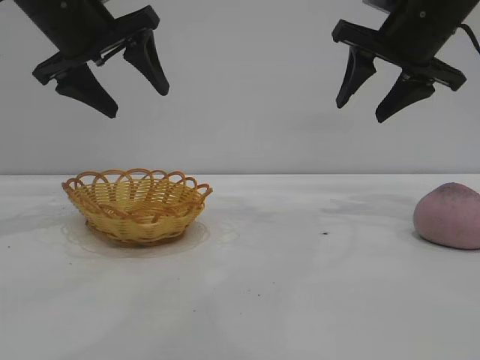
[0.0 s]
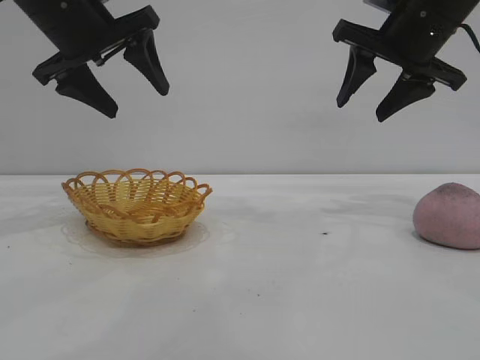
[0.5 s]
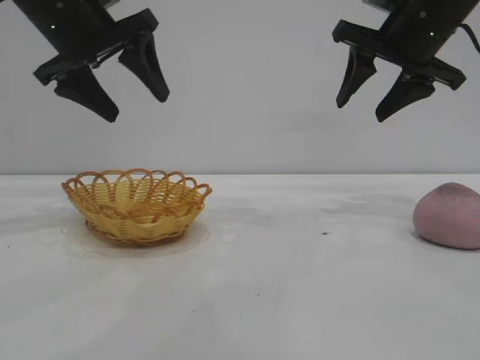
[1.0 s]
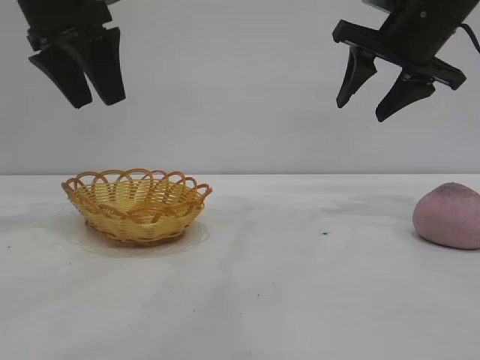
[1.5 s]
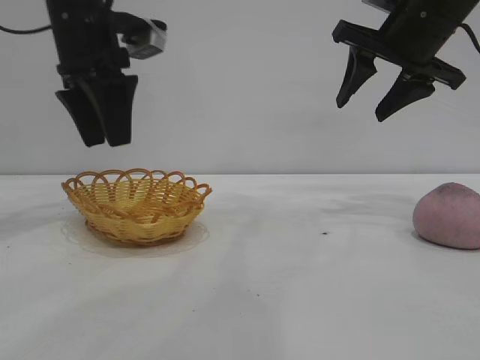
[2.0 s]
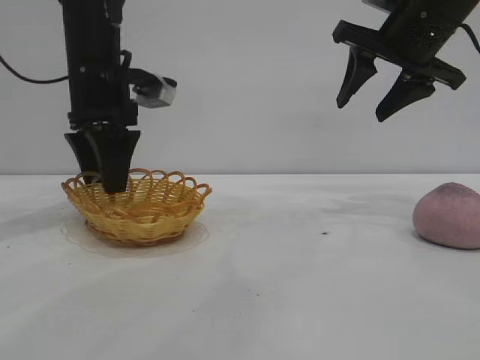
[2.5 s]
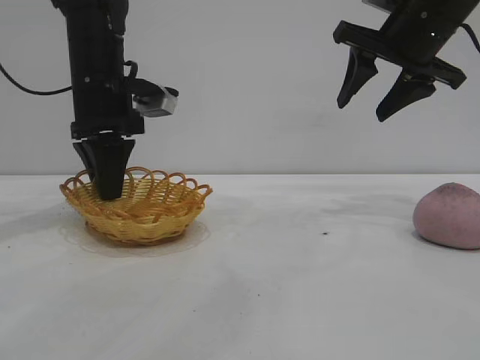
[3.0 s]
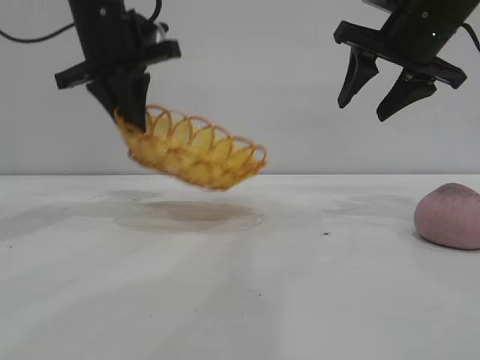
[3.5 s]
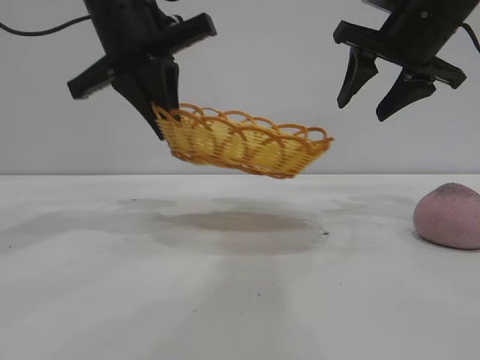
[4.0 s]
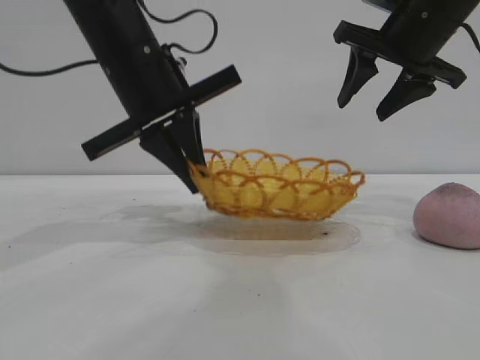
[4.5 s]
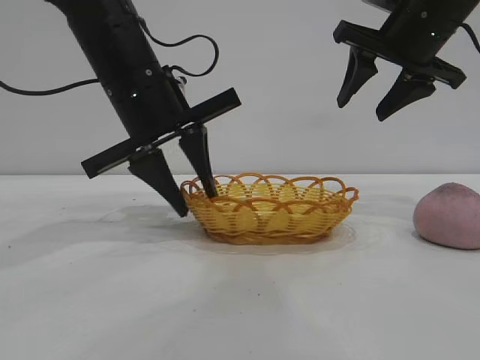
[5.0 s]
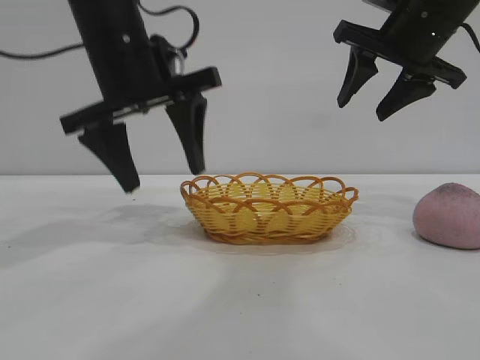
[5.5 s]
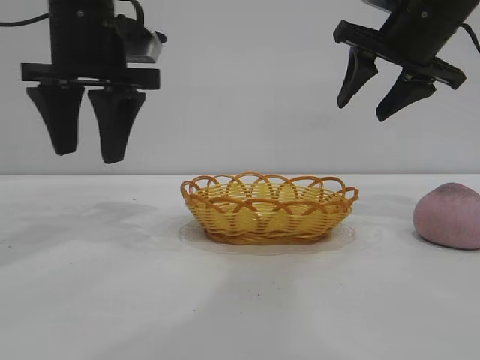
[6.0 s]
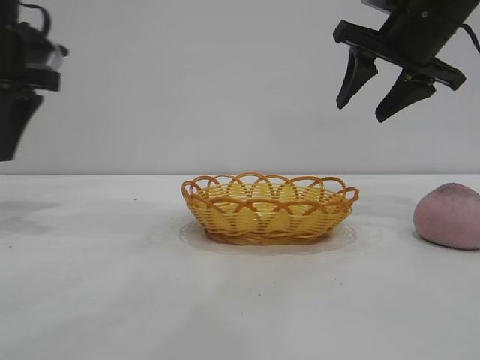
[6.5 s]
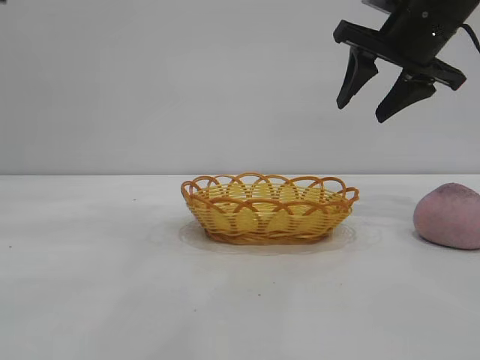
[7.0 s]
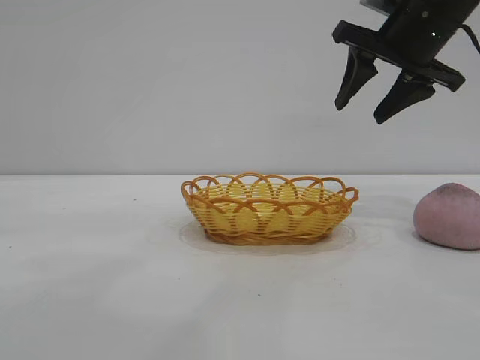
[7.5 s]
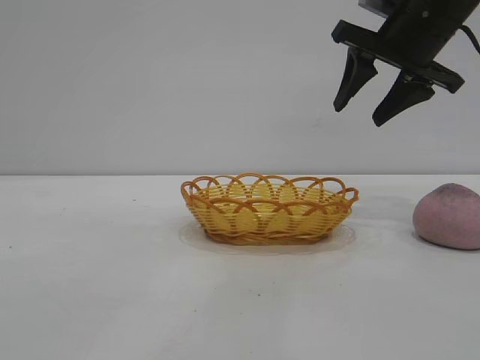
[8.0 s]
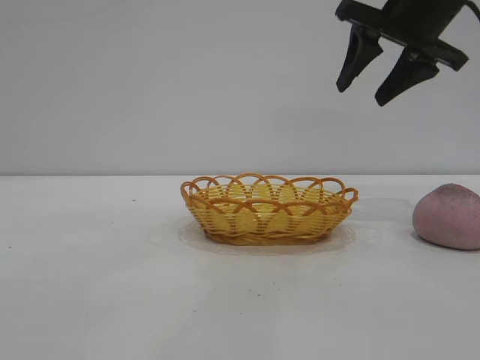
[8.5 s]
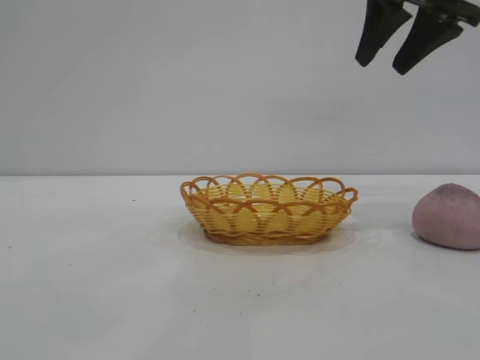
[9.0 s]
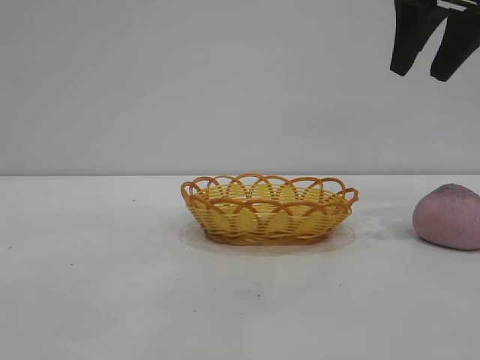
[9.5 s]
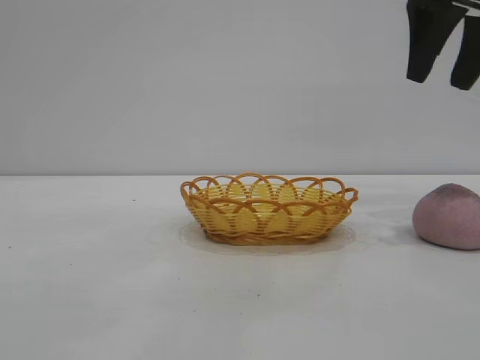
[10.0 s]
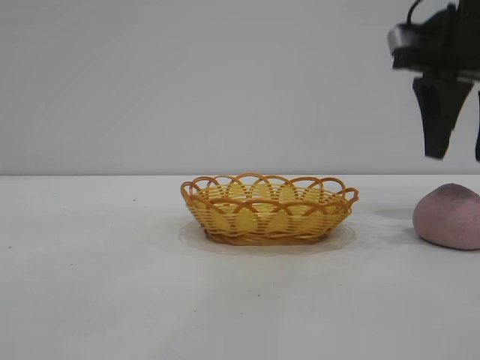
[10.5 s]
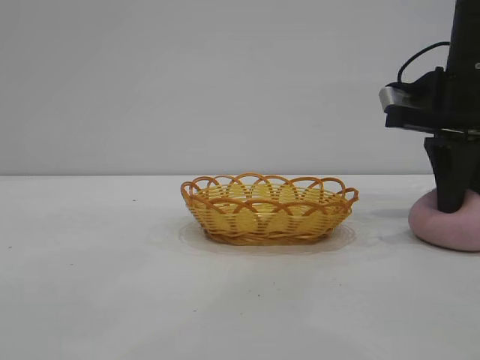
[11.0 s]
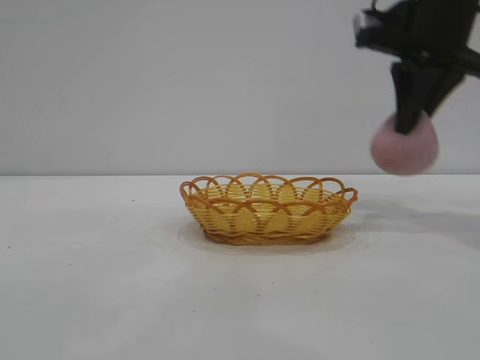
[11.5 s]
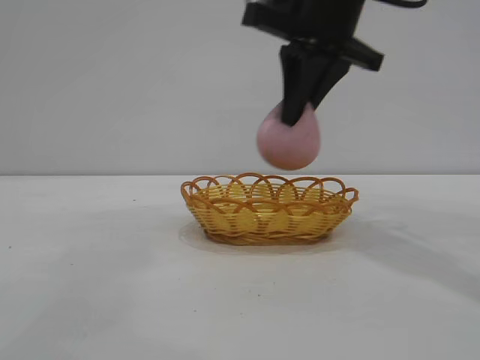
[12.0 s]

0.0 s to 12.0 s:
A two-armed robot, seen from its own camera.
Task of the whole recording: pick up the peach and put it into the basket.
Step, 0.0 to 5.5 s: Move the basket to the center of view.
Step, 6.0 to 11.0 s: Pick up the peach.

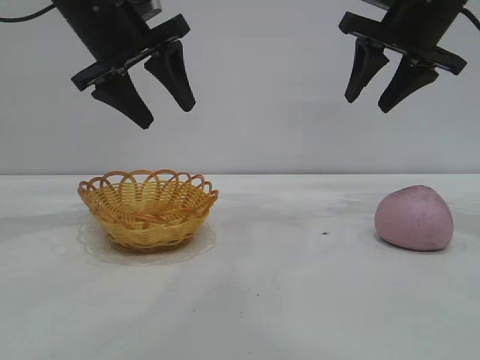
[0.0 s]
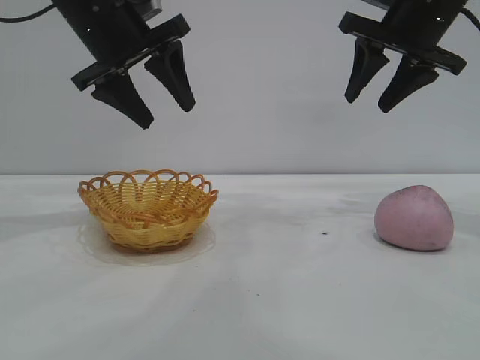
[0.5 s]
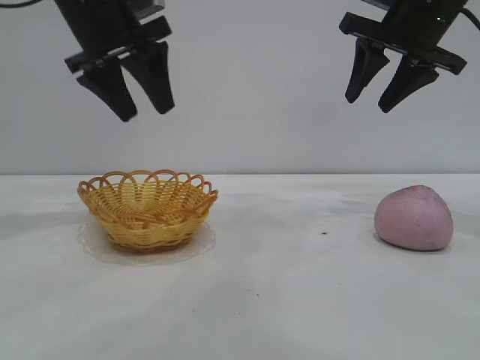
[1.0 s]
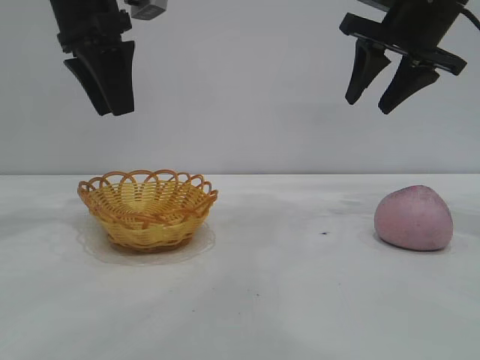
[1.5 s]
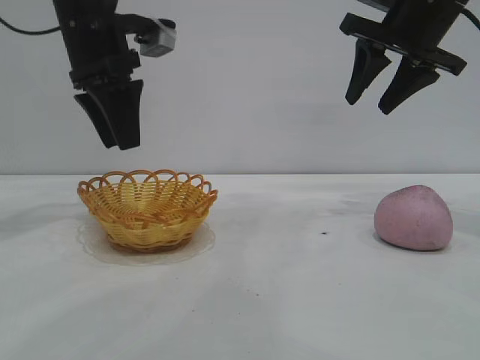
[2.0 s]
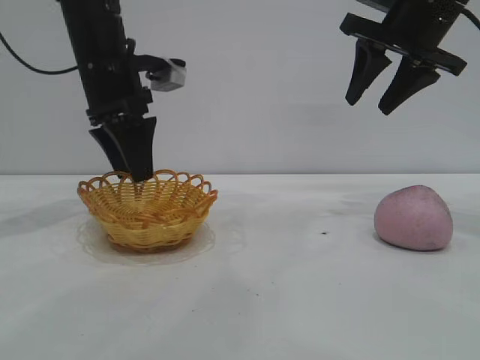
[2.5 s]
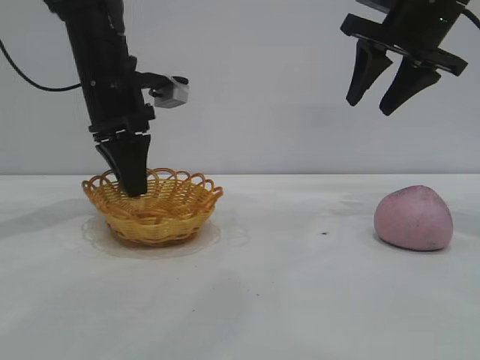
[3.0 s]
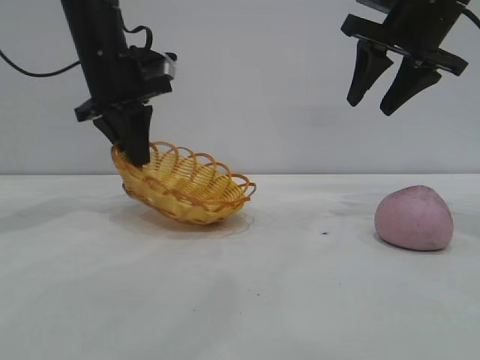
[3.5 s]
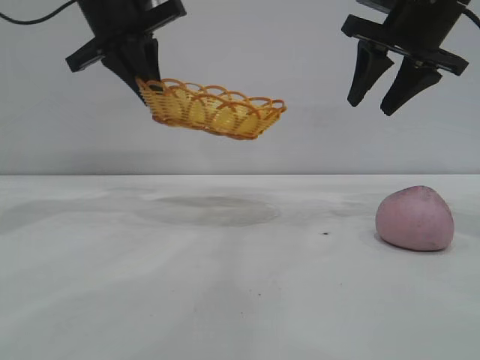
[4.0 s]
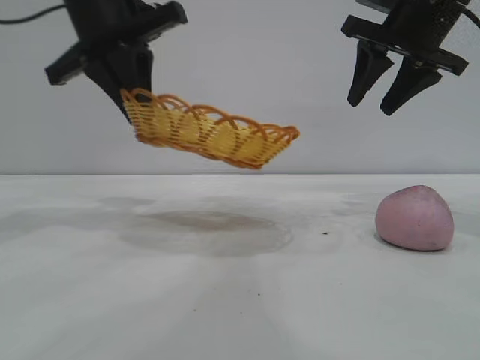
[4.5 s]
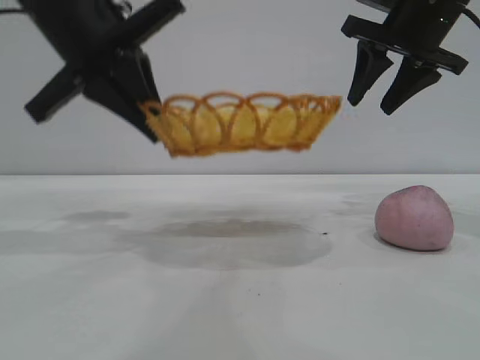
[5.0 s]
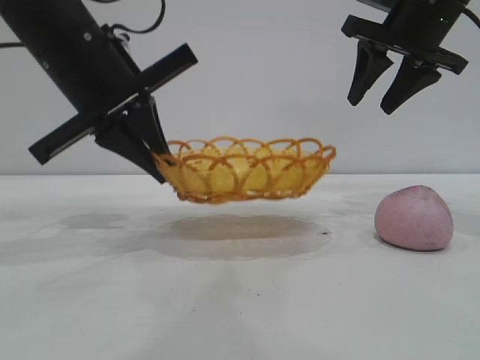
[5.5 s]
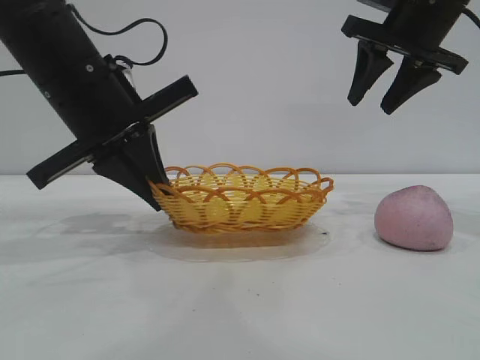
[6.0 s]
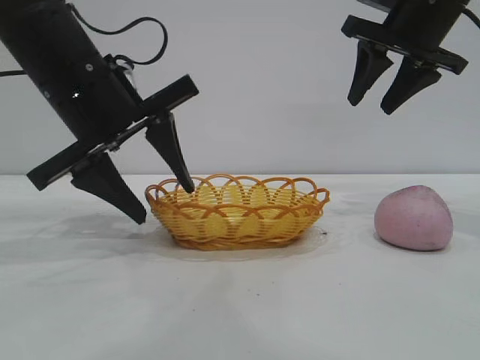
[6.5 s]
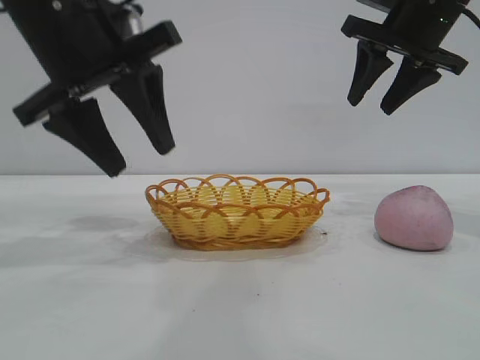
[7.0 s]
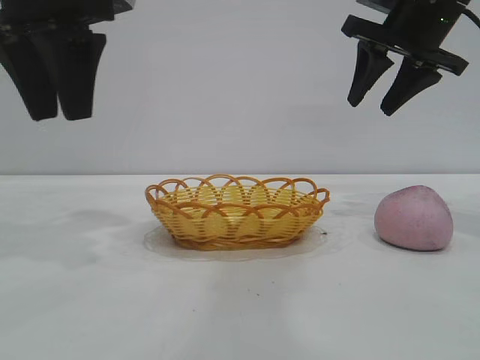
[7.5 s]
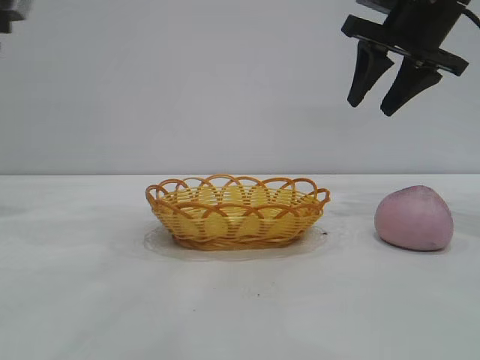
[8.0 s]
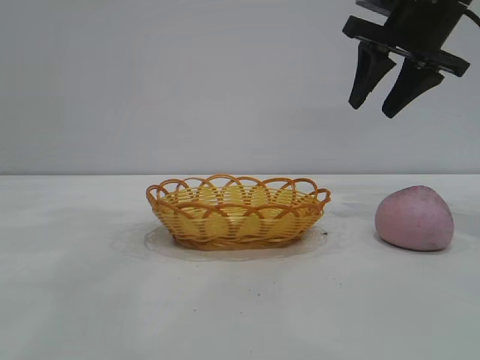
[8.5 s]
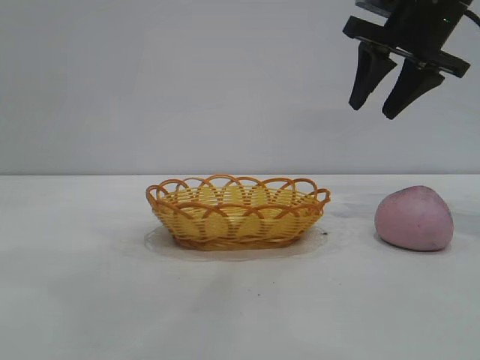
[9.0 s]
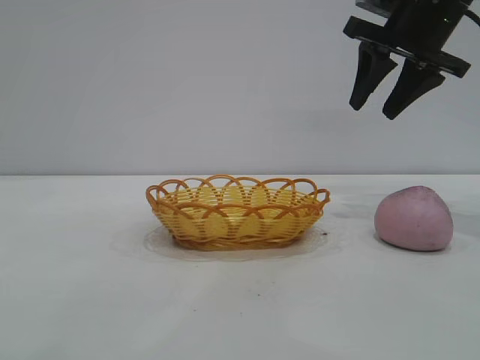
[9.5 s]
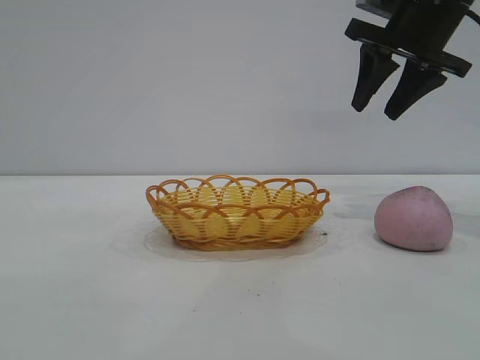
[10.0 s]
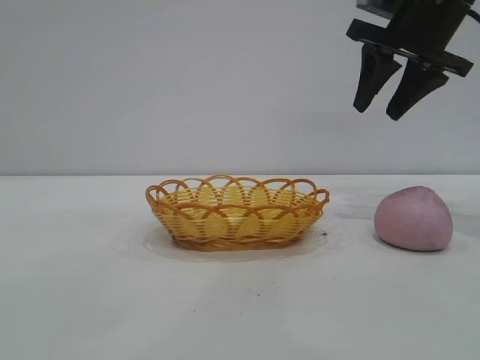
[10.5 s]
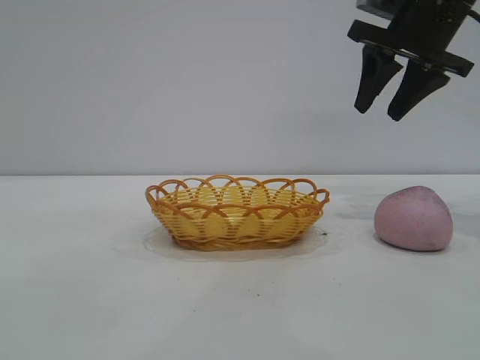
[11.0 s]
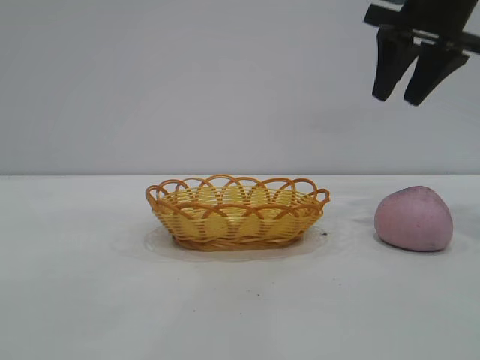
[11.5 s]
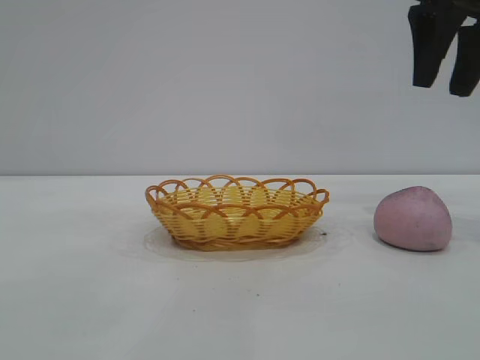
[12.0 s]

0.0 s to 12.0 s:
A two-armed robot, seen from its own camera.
Task of the whole recording: pick up the peach and put it into the basket.
Step, 0.0 to 7.0 s: Move the basket to the center of view.

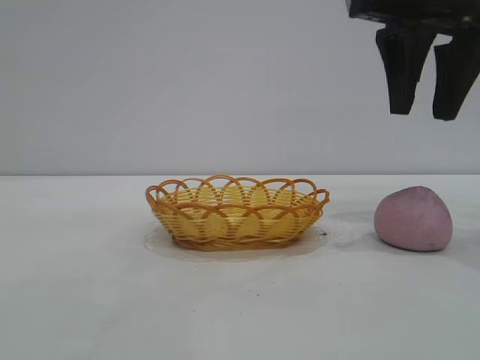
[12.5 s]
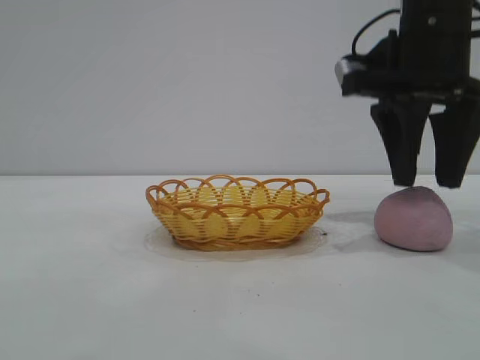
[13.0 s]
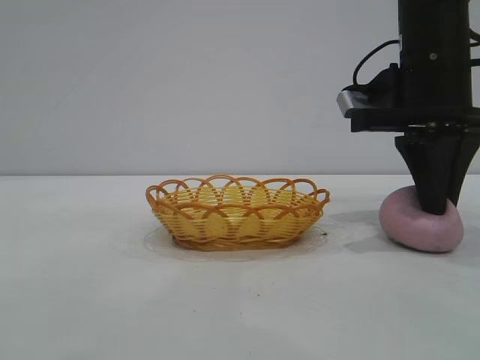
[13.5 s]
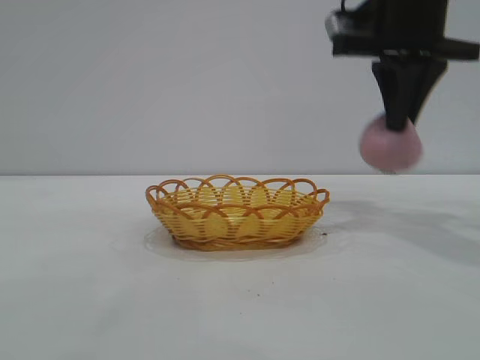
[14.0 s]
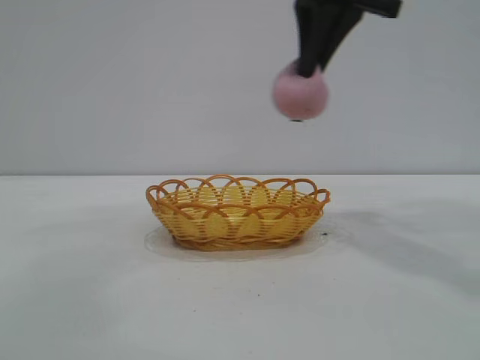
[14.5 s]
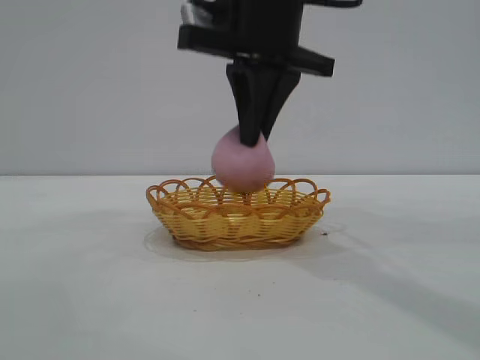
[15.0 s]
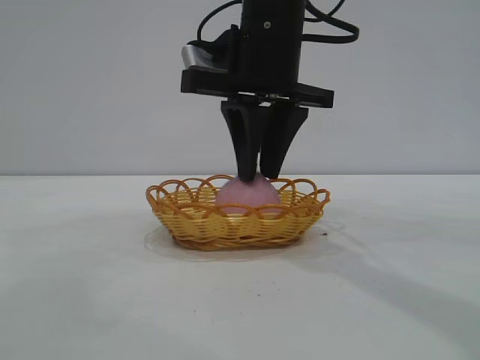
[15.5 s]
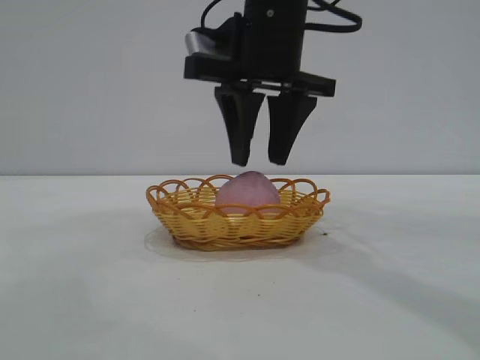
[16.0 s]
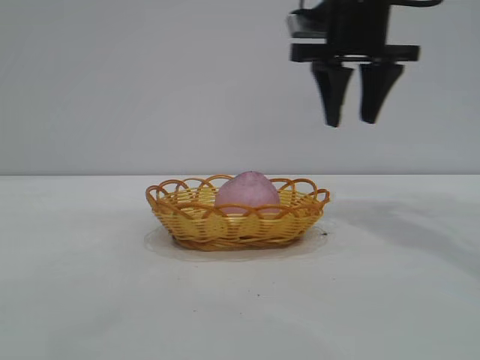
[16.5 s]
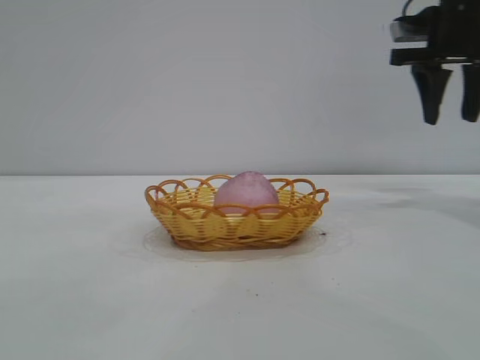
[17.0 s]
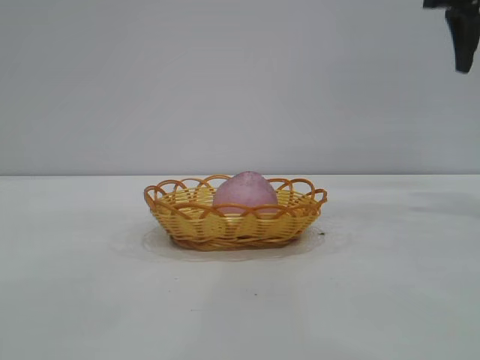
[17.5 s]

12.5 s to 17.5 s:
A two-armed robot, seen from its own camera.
Task of the whole recording: pick up the peach and put it into the basket.
Step, 14.0 to 16.0 s: place the peach into the basket.
